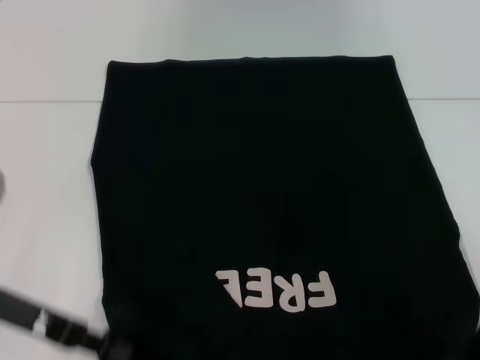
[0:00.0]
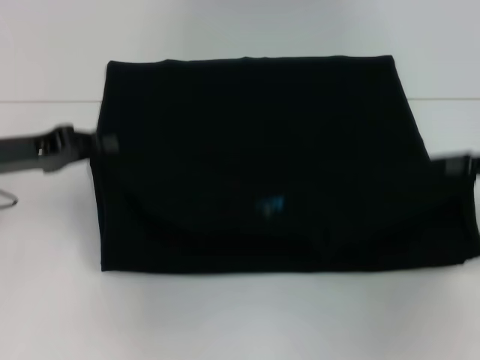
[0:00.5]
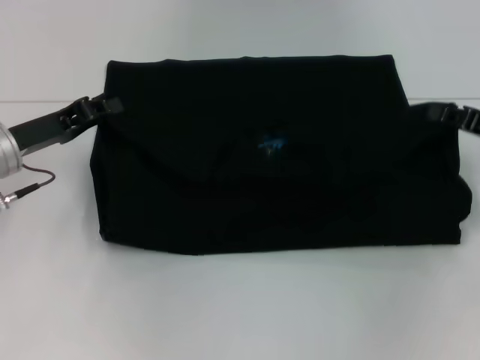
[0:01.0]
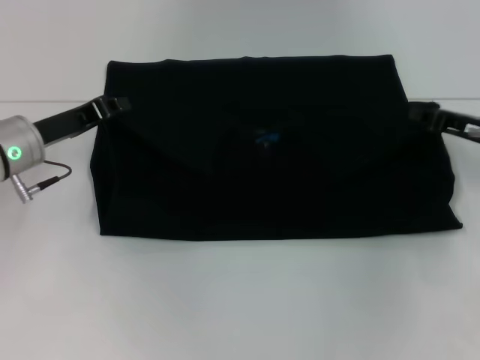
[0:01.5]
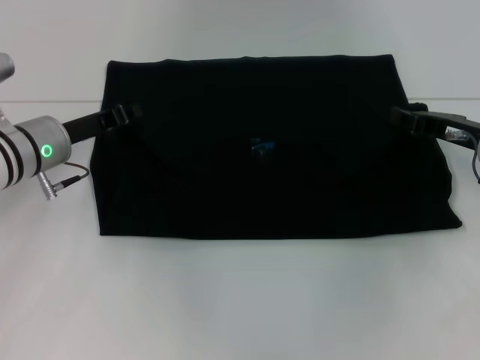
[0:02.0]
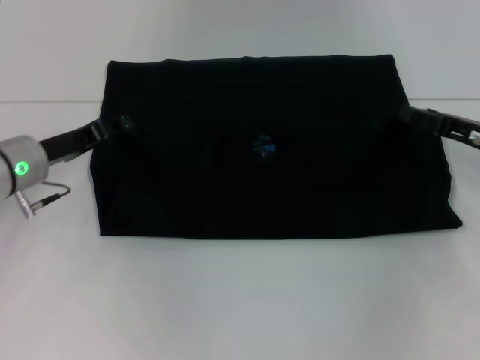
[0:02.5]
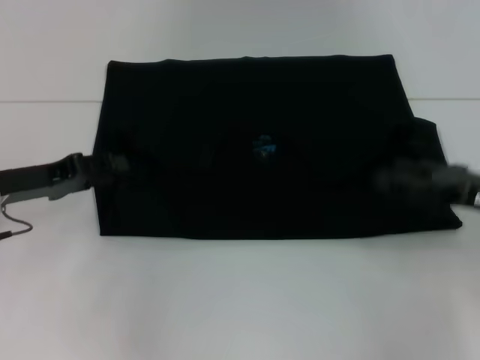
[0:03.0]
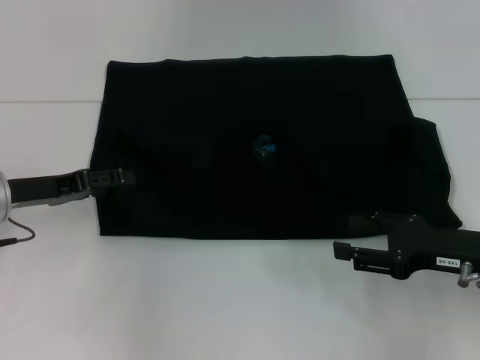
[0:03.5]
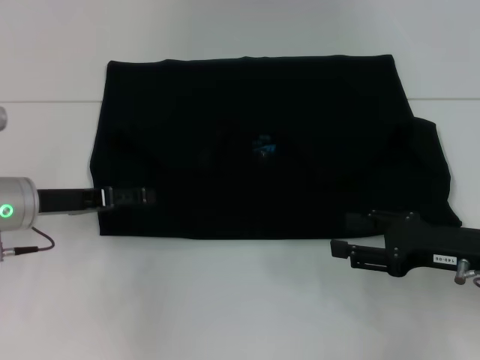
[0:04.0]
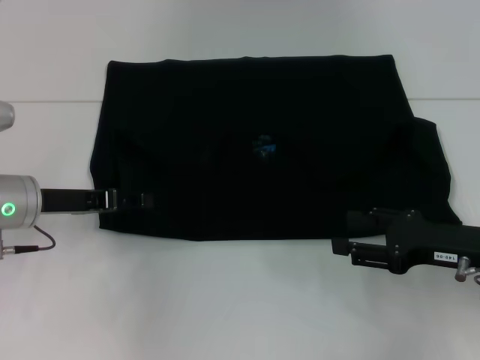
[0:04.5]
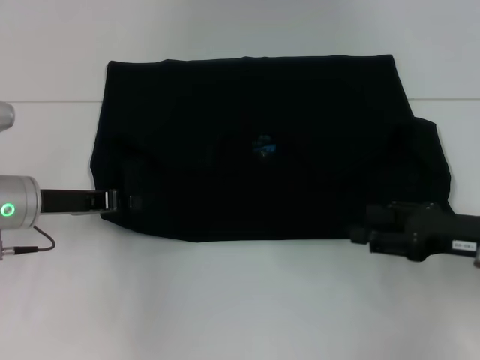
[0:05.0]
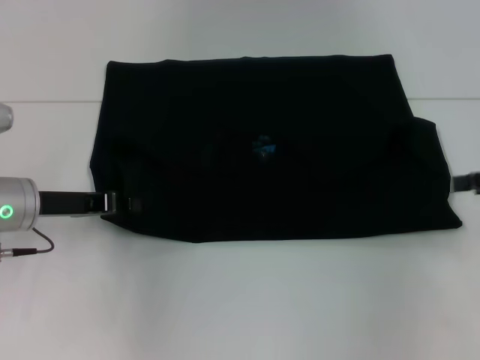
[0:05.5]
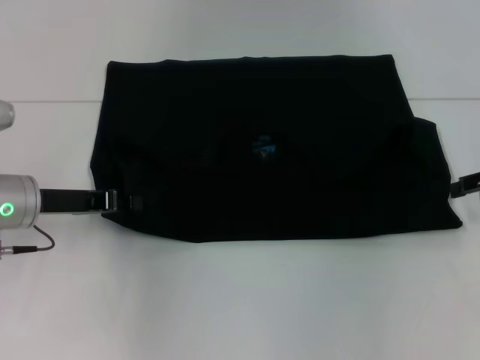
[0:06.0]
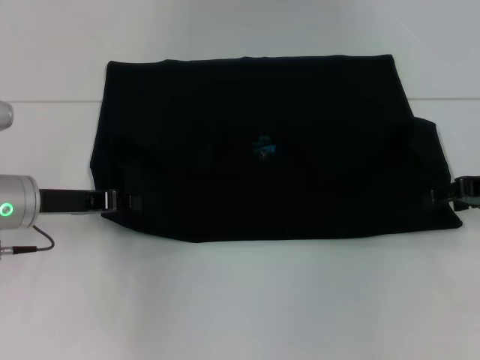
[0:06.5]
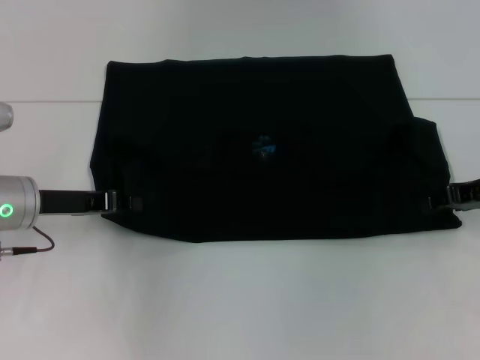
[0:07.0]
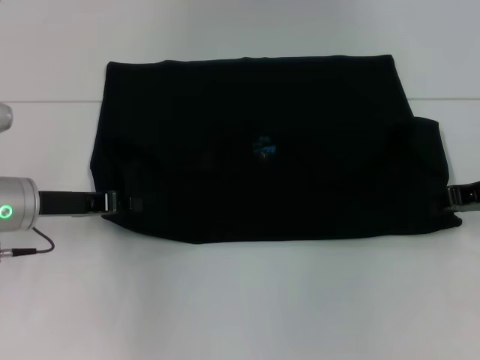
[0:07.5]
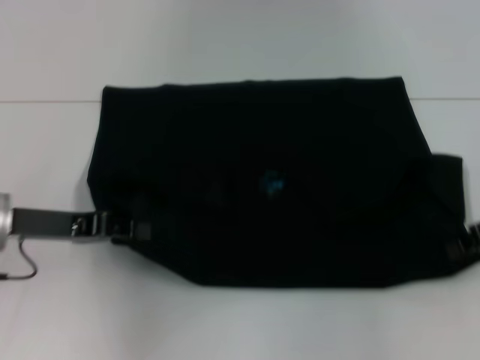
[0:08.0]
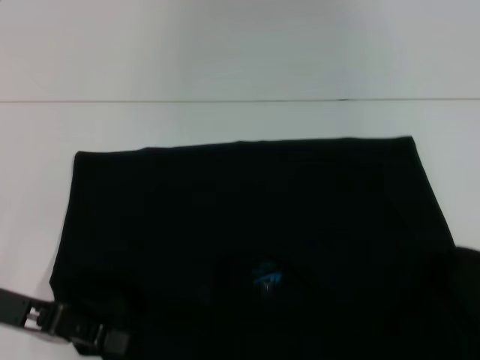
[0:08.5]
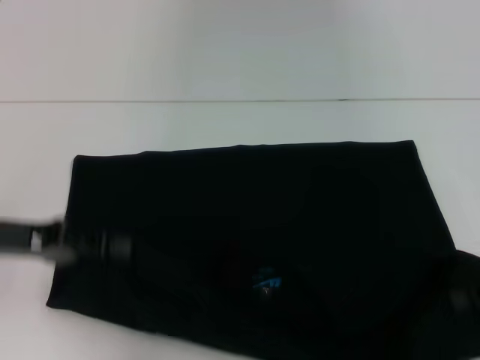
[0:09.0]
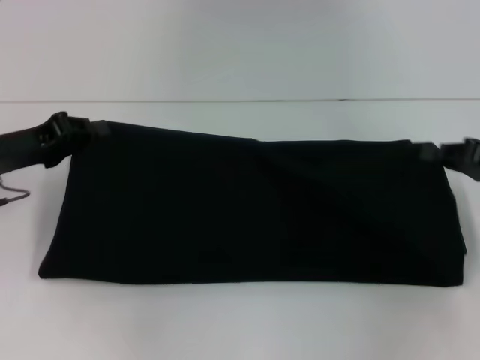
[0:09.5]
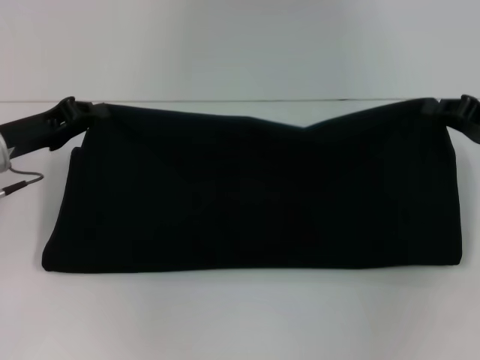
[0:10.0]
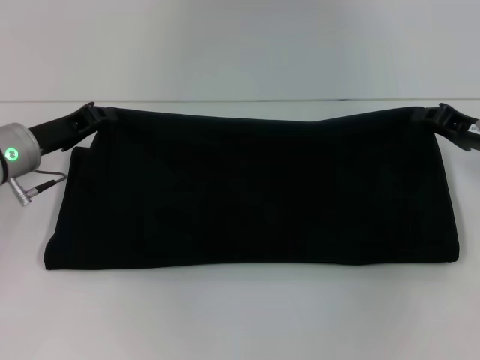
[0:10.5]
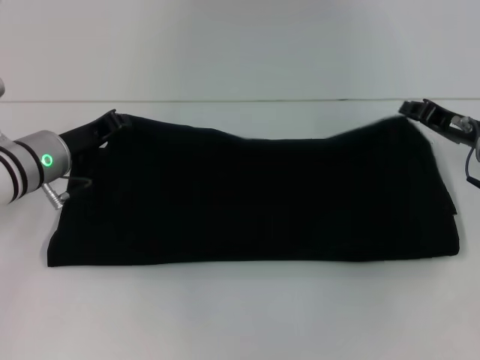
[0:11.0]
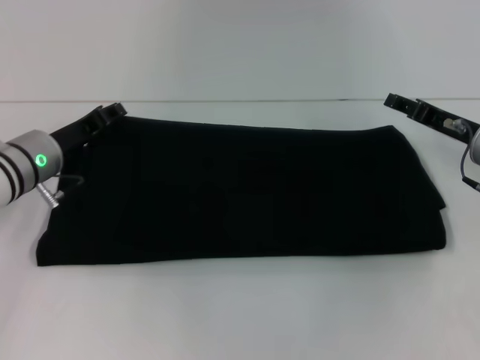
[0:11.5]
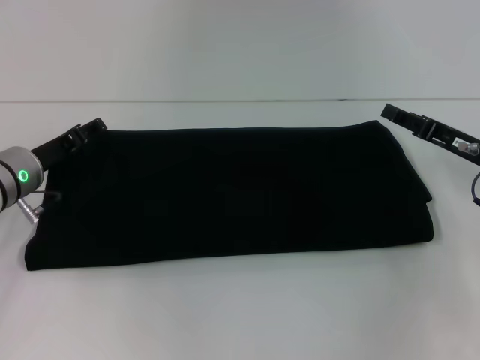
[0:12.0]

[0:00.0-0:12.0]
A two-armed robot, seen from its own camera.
Step, 0:00.0 to 0:02.5: Fold the clothes with your left hand.
Step, 0:00.0 to 0:02.5: Fold the clothes with your right hand.
Step, 0:03.0 to 0:08.5: Pull the clothes with your left hand.
Step, 0:03.0 to 0:08.5: Pull the clothes with your right hand.
0:00.0 to 0:02.0: Both grippers move forward, some 10 cm.
0:02.0 to 0:04.0: The right gripper travels backward by roughly 10 cm, and opens its fingers; the left gripper changes place by about 5 cm, and opens up.
0:04.0 to 0:06.0: The left gripper closes up. Meanwhile the right gripper travels upward, to the right and forward by roughly 15 cm.
0:06.0 to 0:08.0: The right gripper closes up.
0:08.0 to 0:10.0: The right gripper goes backward and returns, roughly 5 cm each way, while the left gripper changes place by some 5 cm.
0:10.0 to 0:12.0: The right gripper ends up roughly 5 cm from where it was, and opens. Meanwhile the left gripper travels downward by about 5 cm, and opens up.

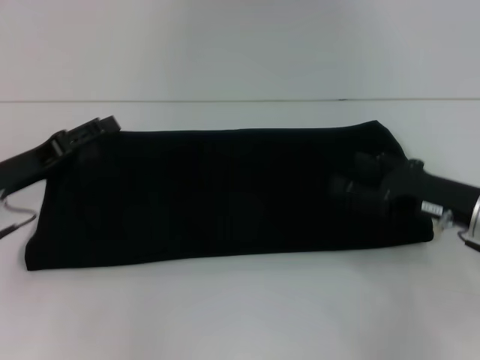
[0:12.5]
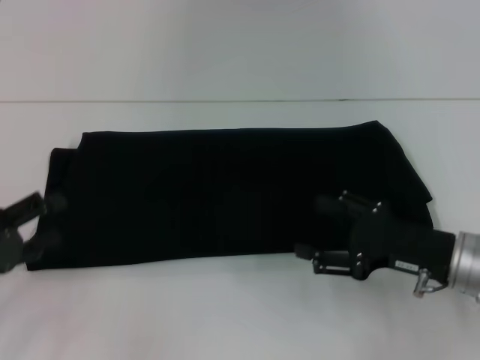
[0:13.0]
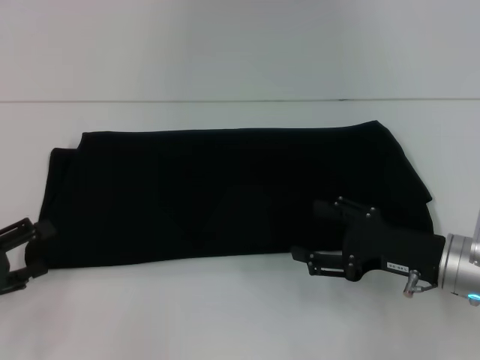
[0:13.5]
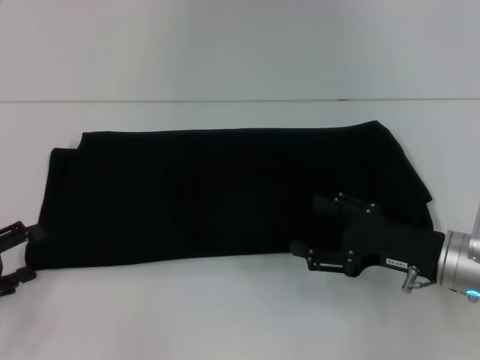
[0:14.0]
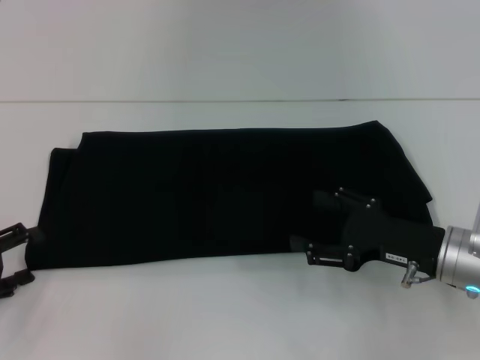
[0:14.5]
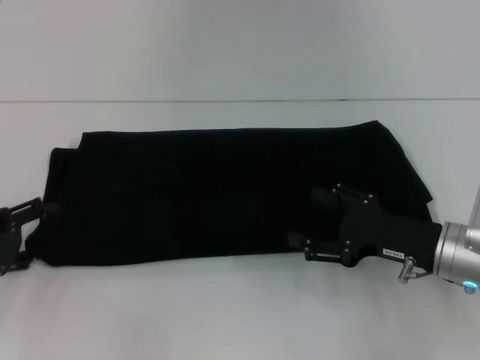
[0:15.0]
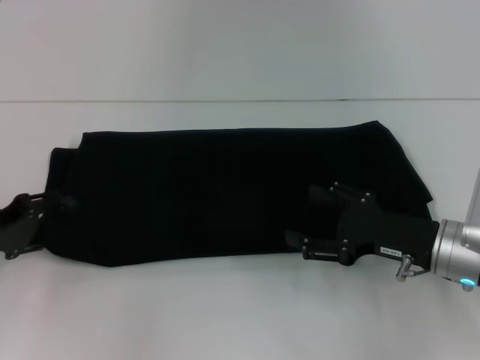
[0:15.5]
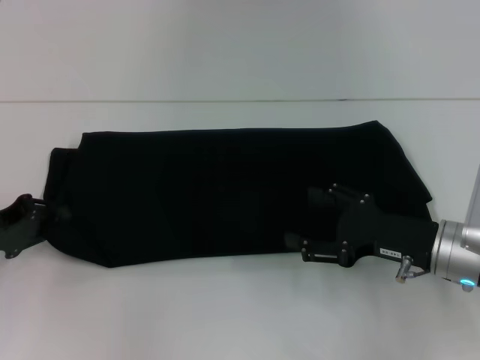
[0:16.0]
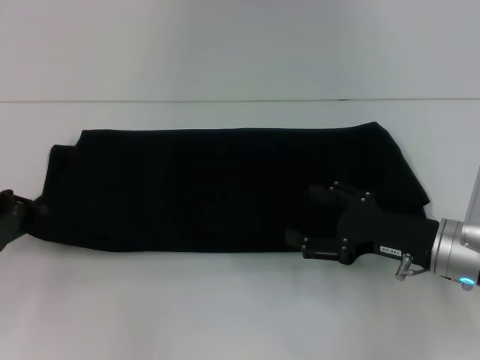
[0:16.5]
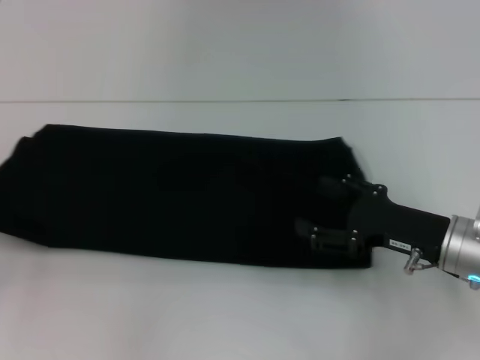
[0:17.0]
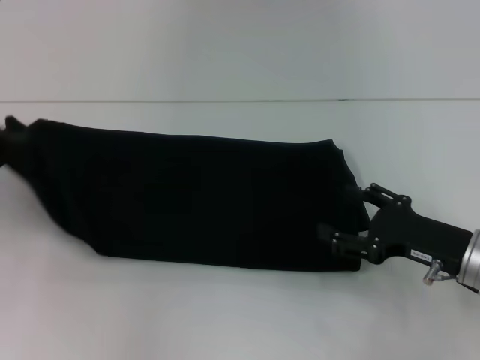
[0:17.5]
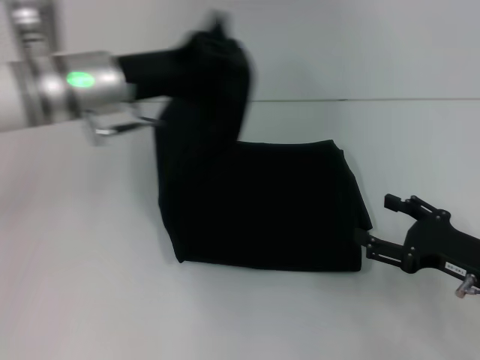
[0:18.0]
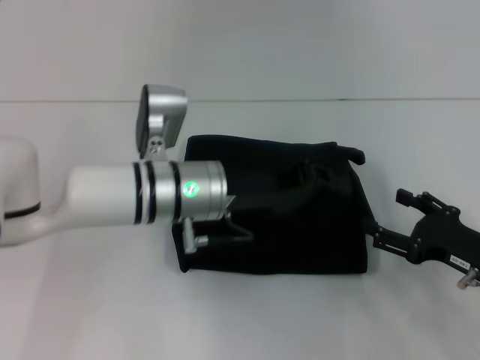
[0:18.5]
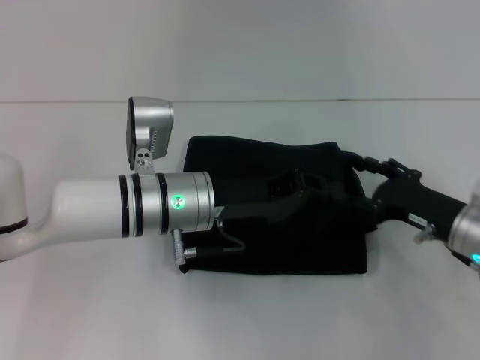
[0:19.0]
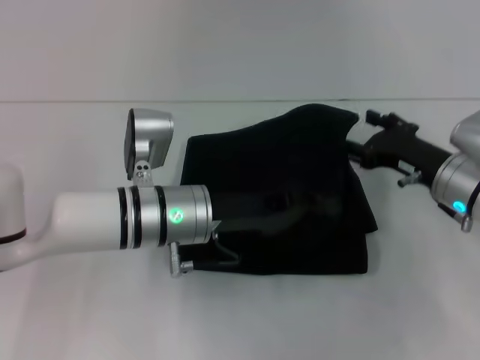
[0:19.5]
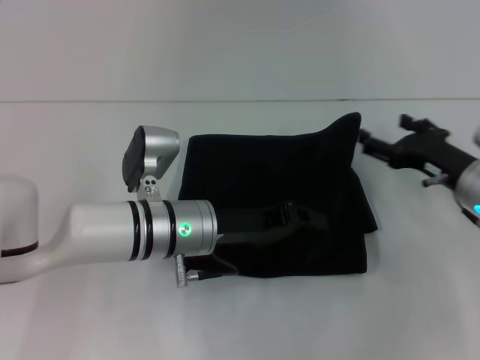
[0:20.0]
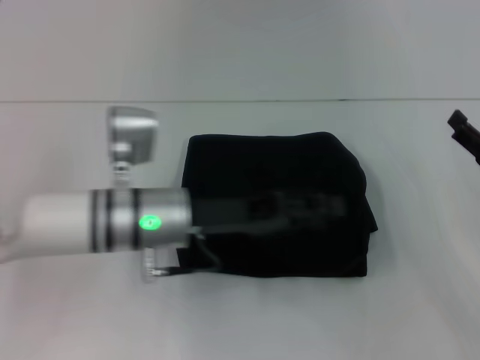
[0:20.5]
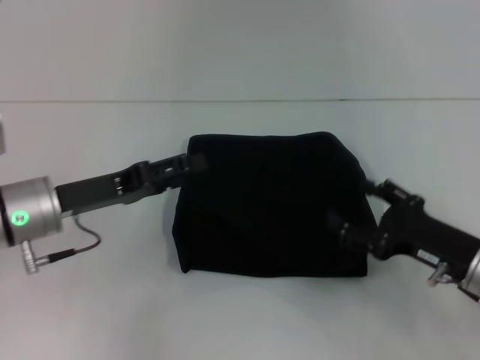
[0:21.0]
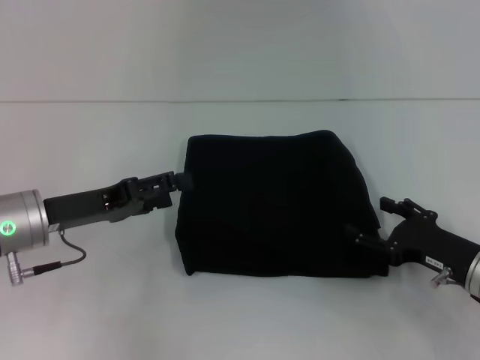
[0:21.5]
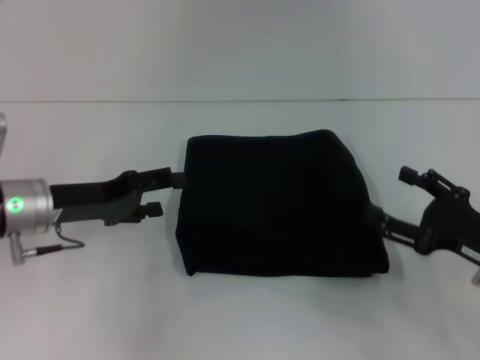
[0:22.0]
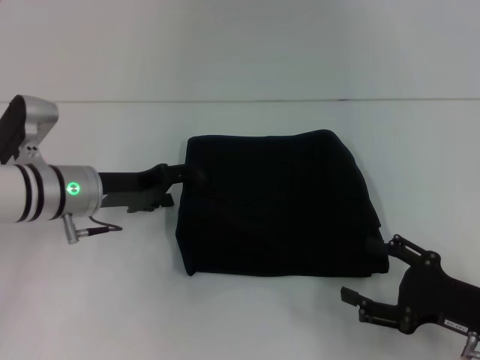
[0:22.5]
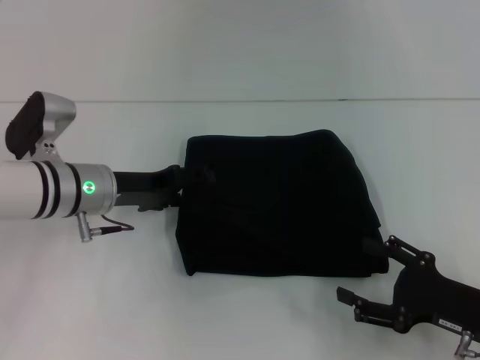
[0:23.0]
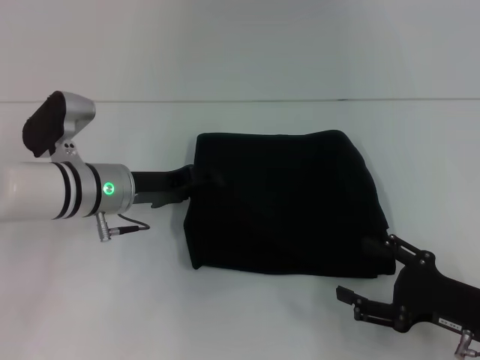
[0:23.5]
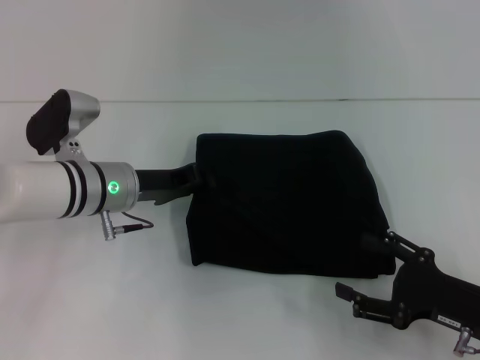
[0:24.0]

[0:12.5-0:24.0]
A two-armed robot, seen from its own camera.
Step, 0:12.5 to 0:20.5: Fold the clothes with your left hand.
0:12.5 to 0:14.5: The right gripper moves approximately 5 cm. The left gripper travels backward and to the left by some 10 cm.
0:14.5 to 0:16.5: The left gripper moves forward, approximately 5 cm, and closes its fingers.
0:16.5 to 0:18.5: The right gripper goes approximately 5 cm to the right; the left gripper heads to the right, covering some 25 cm.
0:18.5 to 0:20.0: The right gripper goes approximately 10 cm forward.
0:20.0 to 0:22.0: The left gripper is displaced to the left by some 15 cm, and opens, while the right gripper goes roughly 10 cm backward.
0:22.0 to 0:24.0: The left gripper goes about 10 cm to the right, and closes its fingers.

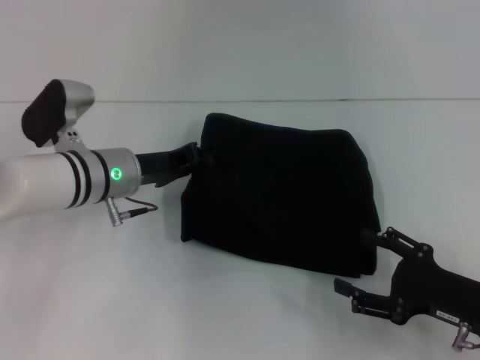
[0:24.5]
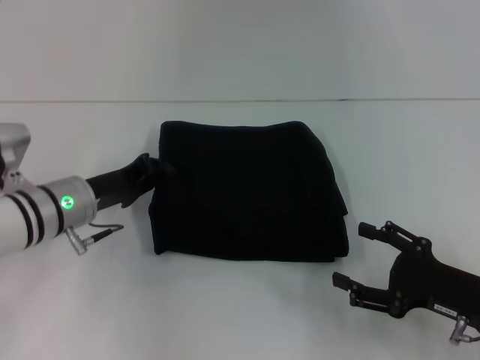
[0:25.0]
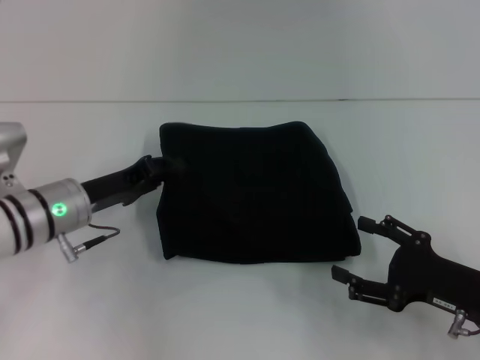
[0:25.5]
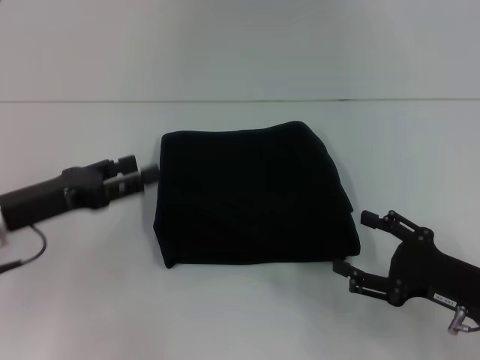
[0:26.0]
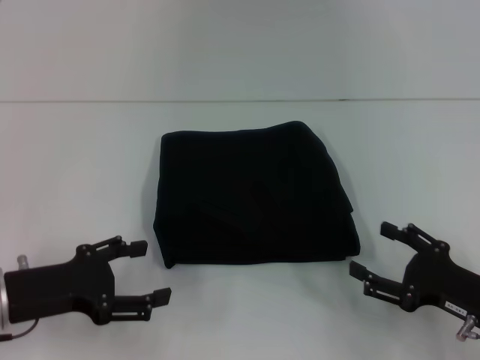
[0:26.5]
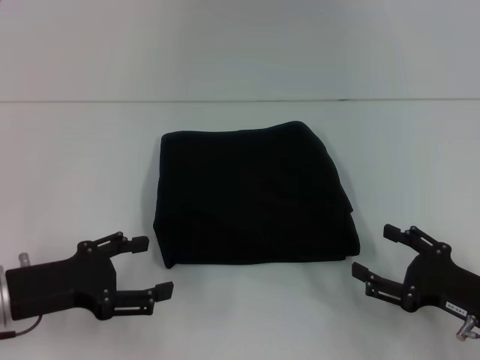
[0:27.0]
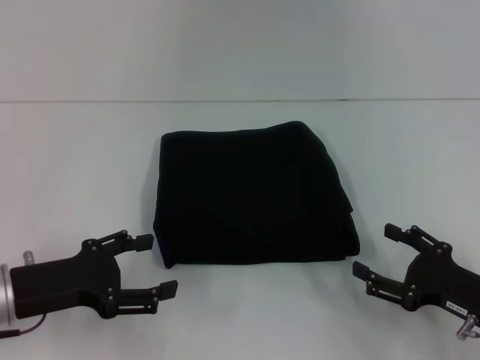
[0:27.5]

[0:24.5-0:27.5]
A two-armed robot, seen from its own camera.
0:24.5 to 0:26.0: The left gripper is displaced to the left and backward by about 15 cm, and opens up.
0:26.0 to 0:27.5: The left gripper shifts by approximately 5 cm.
